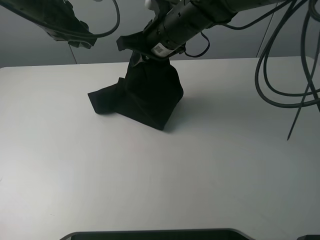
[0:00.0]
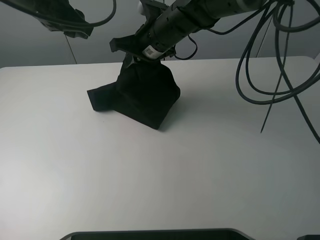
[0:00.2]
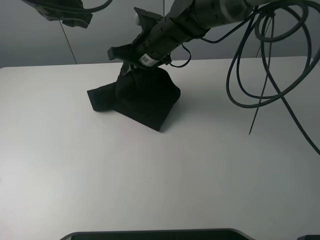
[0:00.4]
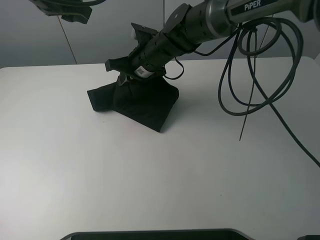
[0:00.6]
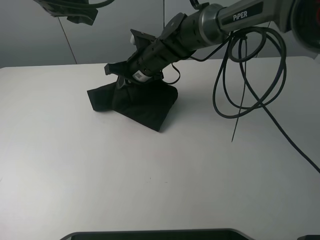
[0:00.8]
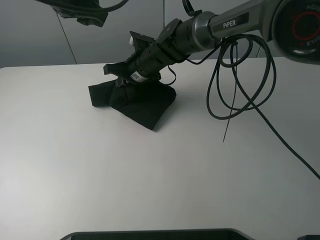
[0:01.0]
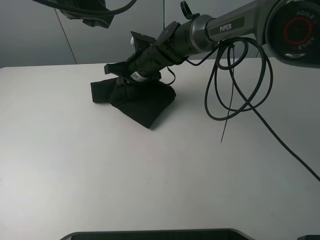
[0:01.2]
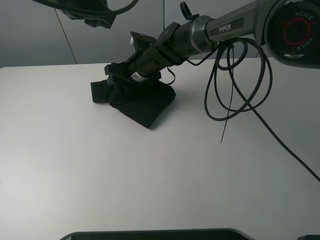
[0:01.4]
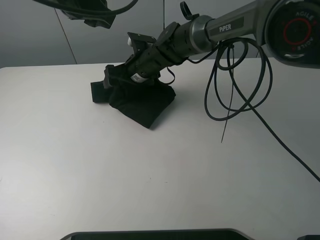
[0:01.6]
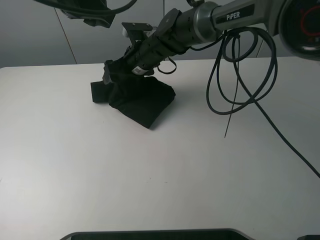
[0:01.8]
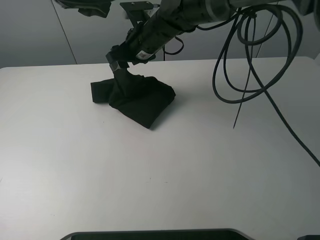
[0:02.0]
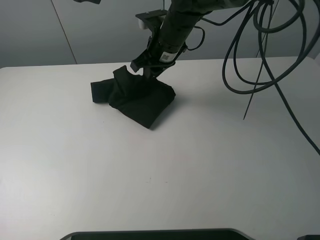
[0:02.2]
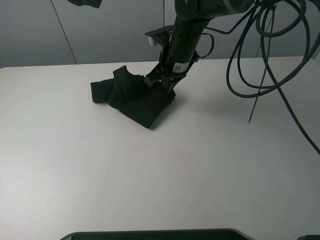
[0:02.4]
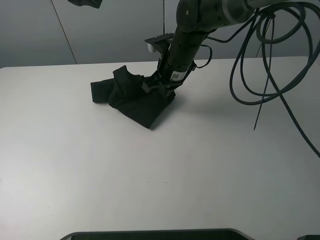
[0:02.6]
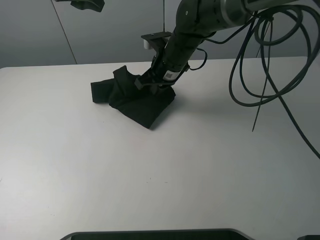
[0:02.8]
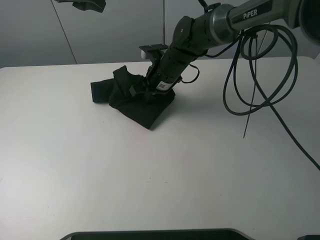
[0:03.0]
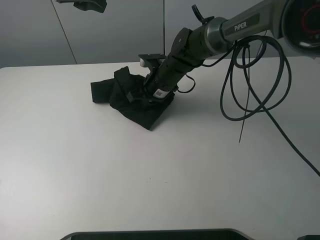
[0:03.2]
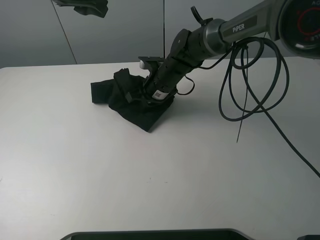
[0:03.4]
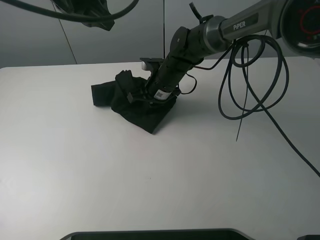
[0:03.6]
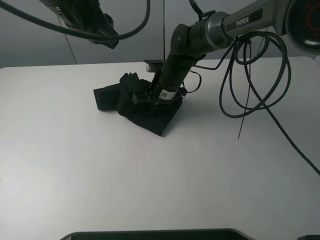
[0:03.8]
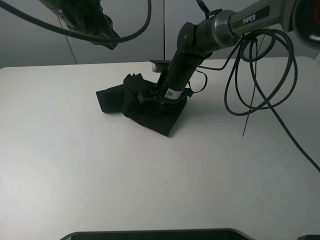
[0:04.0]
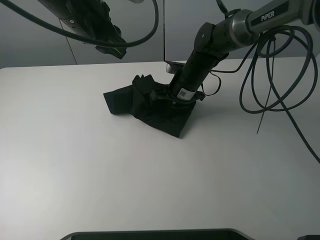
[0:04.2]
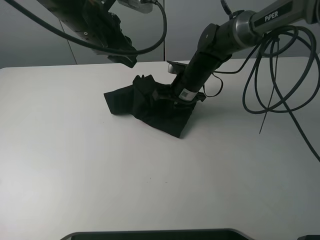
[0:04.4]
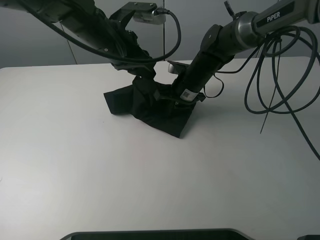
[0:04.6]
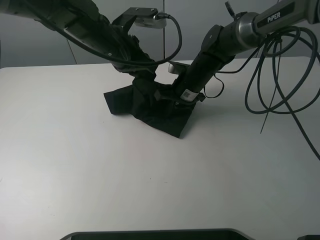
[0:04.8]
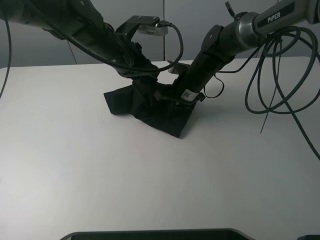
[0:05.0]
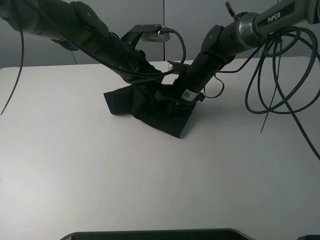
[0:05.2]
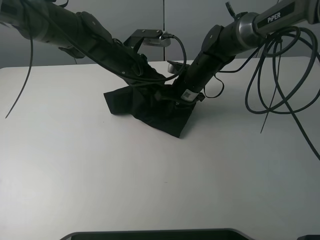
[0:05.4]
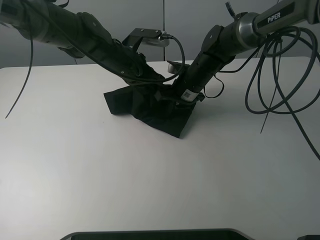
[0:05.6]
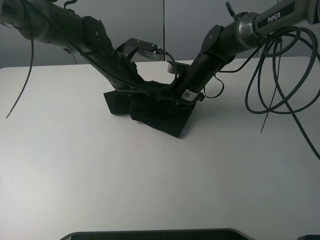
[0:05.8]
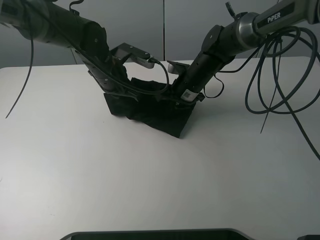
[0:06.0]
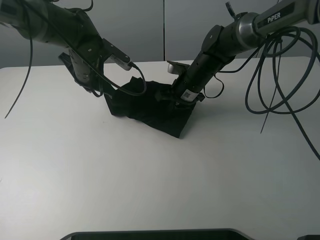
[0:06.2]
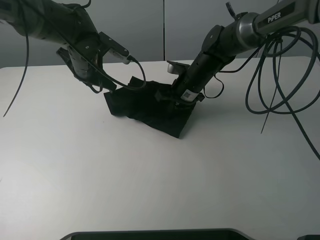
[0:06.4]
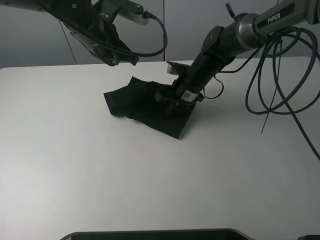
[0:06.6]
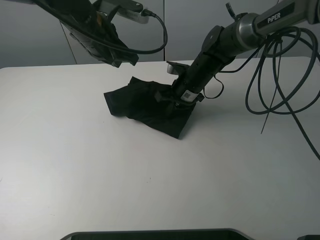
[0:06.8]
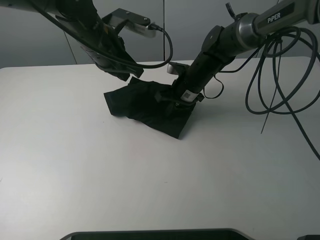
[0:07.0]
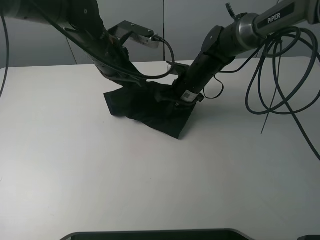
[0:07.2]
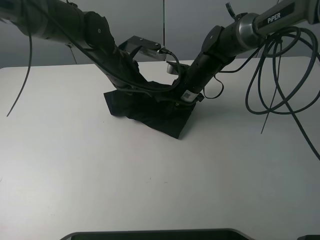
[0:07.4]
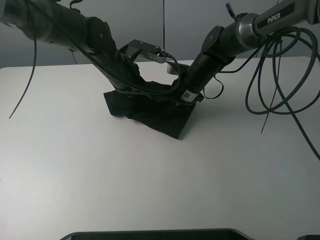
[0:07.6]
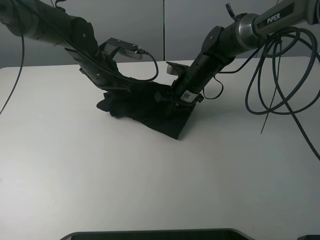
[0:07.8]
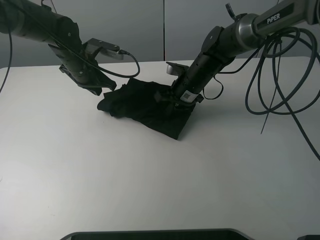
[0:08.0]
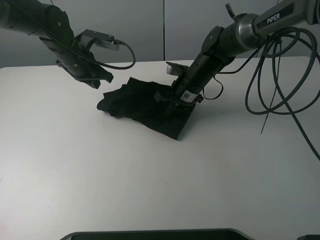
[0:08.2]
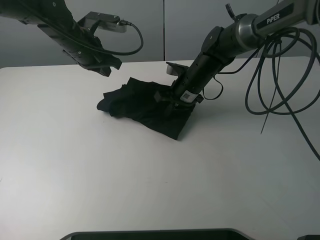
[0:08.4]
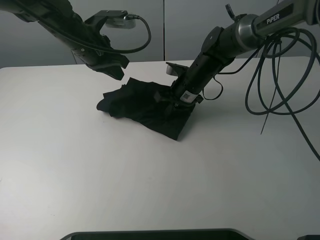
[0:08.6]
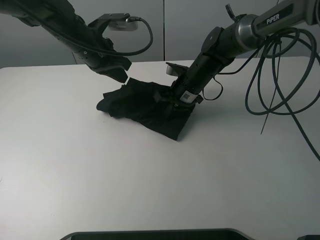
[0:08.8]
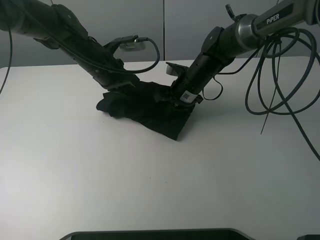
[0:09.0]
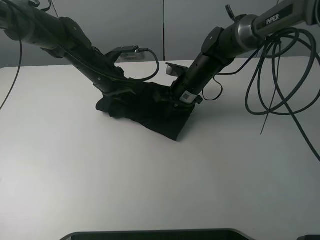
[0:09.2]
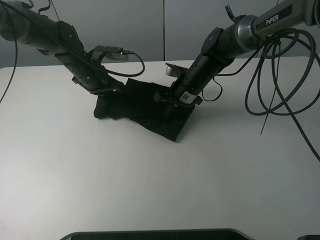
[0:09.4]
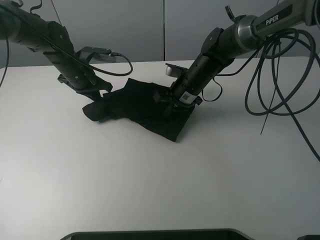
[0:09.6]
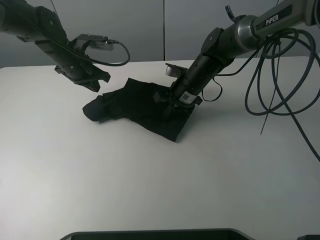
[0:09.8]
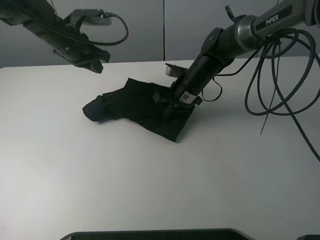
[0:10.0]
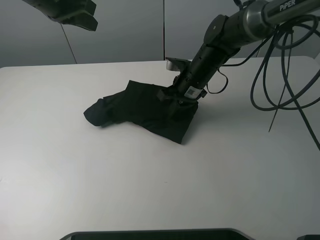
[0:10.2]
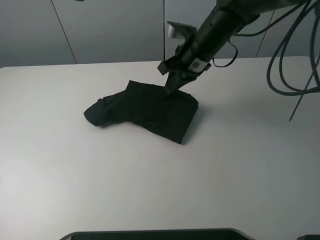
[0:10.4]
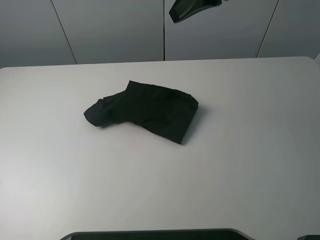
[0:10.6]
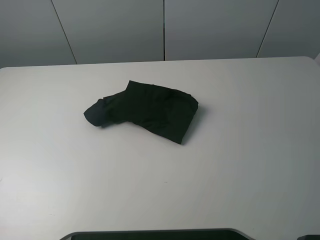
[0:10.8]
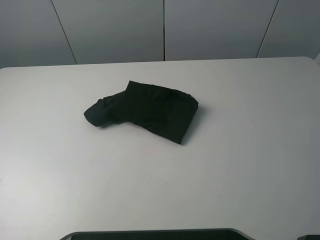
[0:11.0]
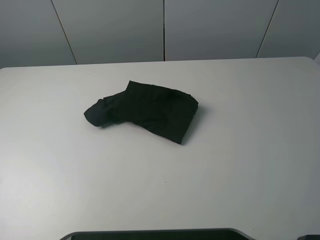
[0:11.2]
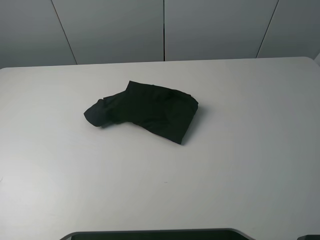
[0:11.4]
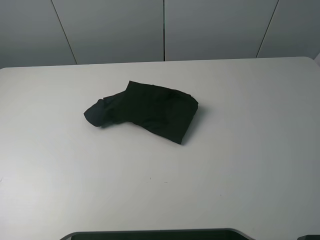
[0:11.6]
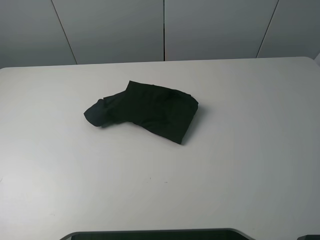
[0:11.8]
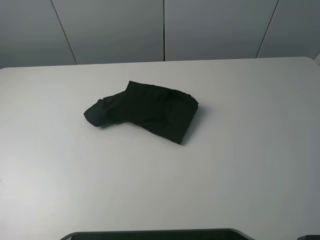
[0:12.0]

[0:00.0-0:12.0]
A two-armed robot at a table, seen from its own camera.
Task of the whole recording: fold the clothes on the table.
Step, 0:01.8 to 0:09.6: Use the left gripper to tidy up the clothes.
0:00.0 to 0:01.6: The left gripper changes place by approximately 5 cm; the right gripper travels downward, forward and to the left by some 15 cm, and opens up.
0:01.6 to 0:03.0: The right gripper travels upward and back again, some 5 cm each way, and closes its fingers.
0:03.0 to 0:04.4: The left gripper goes about 10 cm downward and to the right. Meanwhile the right gripper moves to the right, approximately 5 cm.
0:04.4 to 0:06.0: The left gripper moves downward, some 10 cm, and closes.
0:06.0 to 0:07.6: The left gripper reaches roughly 10 cm upward, then returns.
0:09.0 to 0:10.4: The left gripper moves upward, approximately 25 cm; the right gripper moves upward, some 15 cm.
0:10.4 to 0:12.0: The left gripper shifts roughly 40 cm backward and to the left. The right gripper moves backward, upward and to the right, roughly 50 cm.

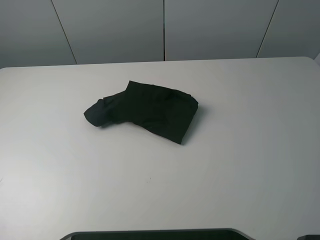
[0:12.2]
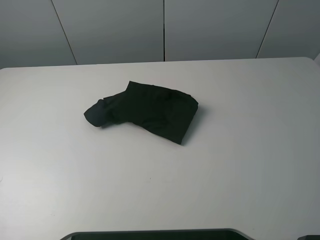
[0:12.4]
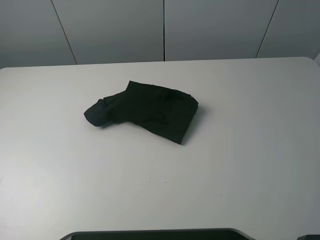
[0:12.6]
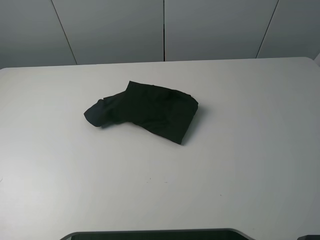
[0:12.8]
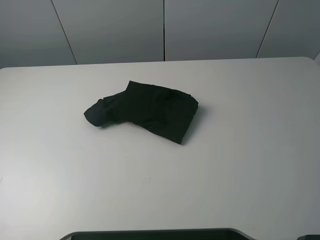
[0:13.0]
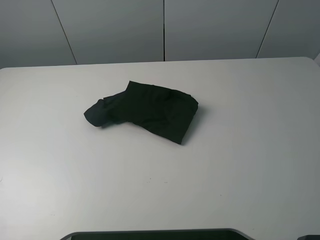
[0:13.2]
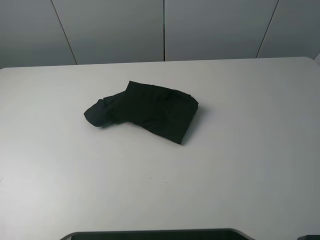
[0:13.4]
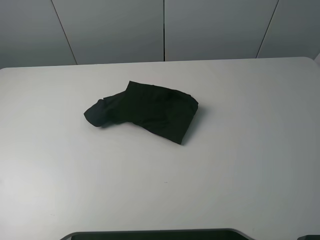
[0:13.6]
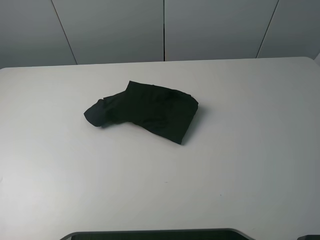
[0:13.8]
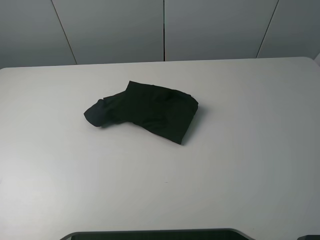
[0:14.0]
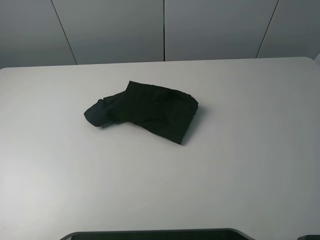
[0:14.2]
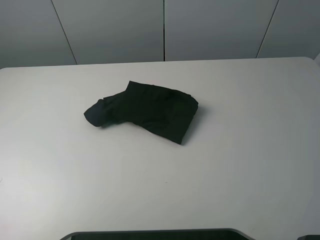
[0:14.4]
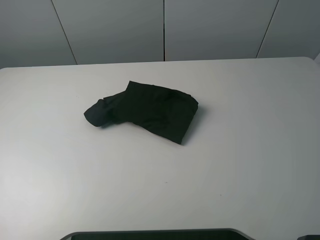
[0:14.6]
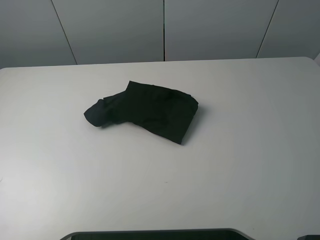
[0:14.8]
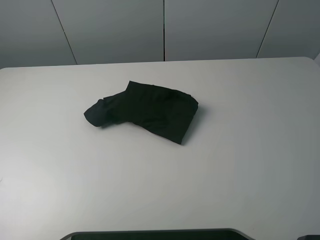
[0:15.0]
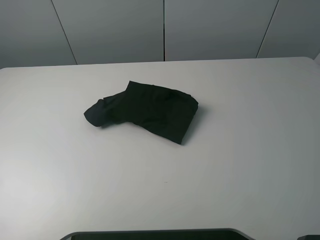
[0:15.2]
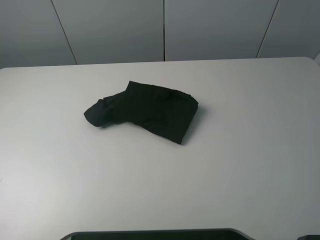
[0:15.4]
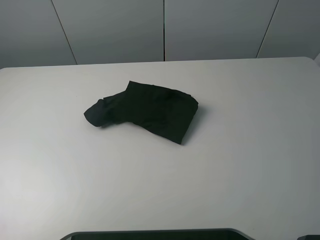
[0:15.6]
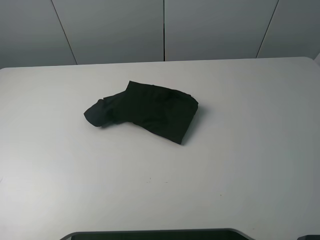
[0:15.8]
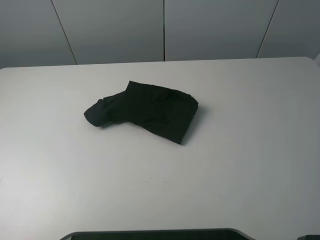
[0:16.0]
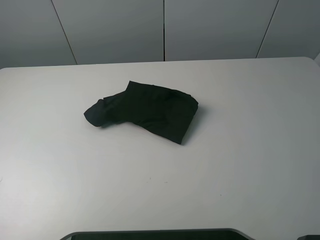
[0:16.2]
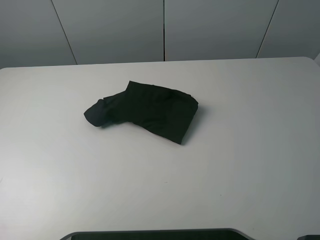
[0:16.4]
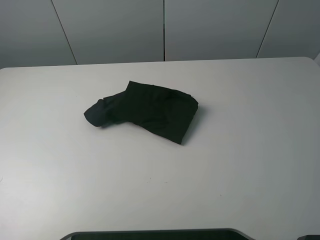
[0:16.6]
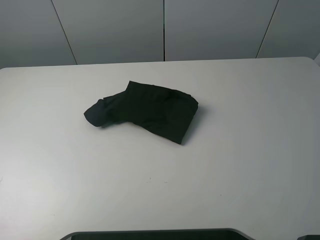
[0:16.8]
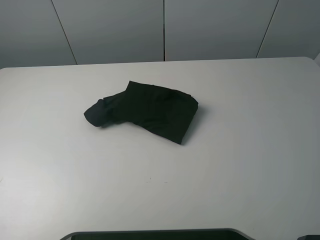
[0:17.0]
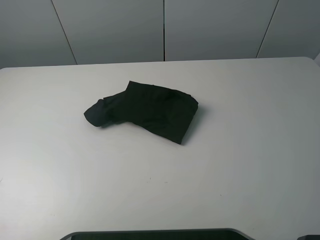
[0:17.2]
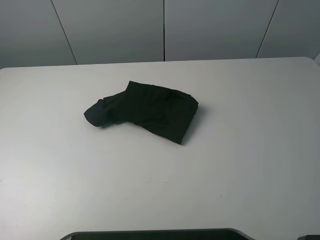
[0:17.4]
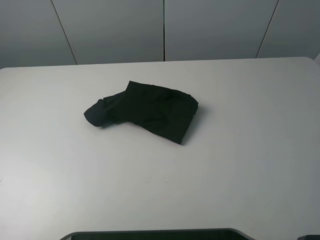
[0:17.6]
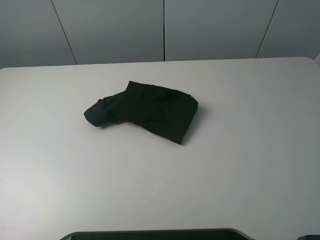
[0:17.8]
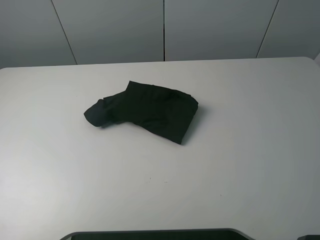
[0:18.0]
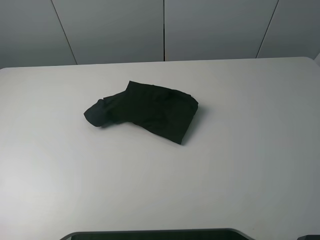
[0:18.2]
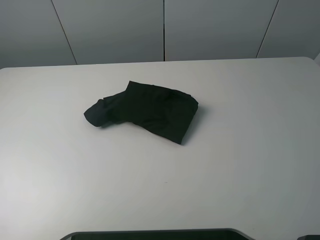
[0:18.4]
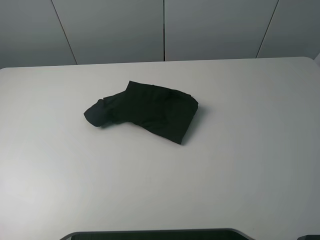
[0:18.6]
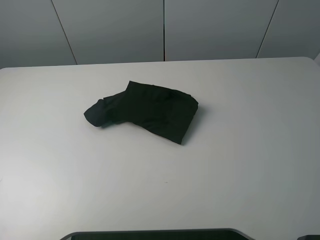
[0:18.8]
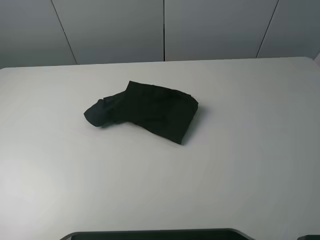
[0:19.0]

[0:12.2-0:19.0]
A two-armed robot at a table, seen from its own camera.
Task of the whole recording: fold the clothes on the table.
0:15.0 to 0:19.0: Both grippers stay put.

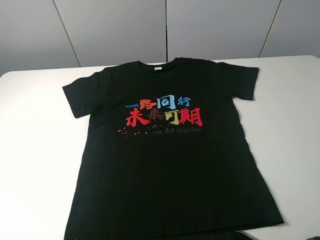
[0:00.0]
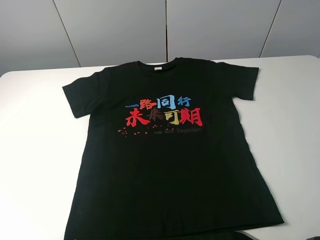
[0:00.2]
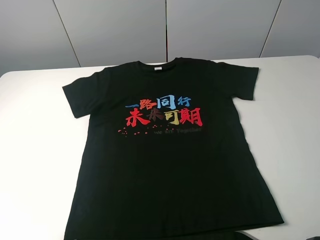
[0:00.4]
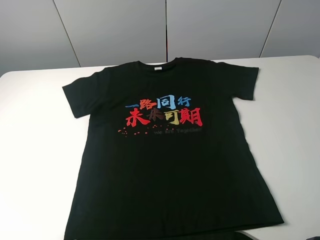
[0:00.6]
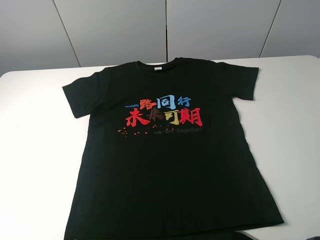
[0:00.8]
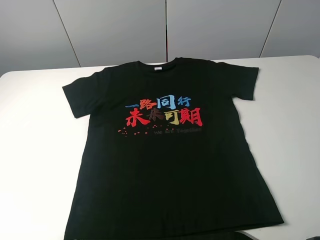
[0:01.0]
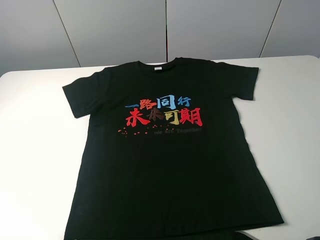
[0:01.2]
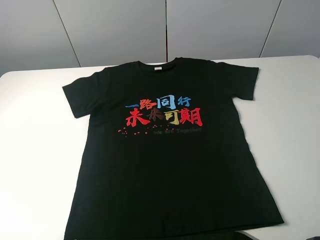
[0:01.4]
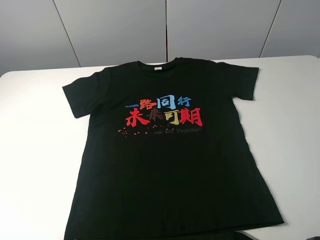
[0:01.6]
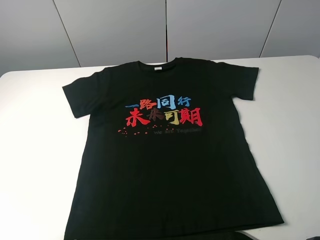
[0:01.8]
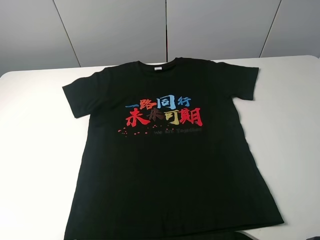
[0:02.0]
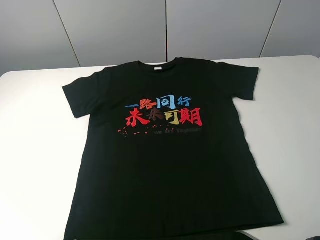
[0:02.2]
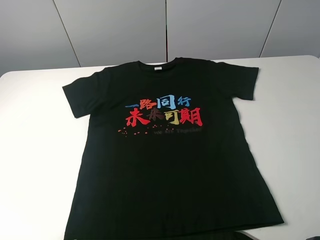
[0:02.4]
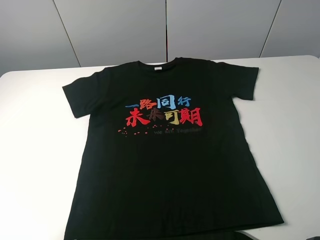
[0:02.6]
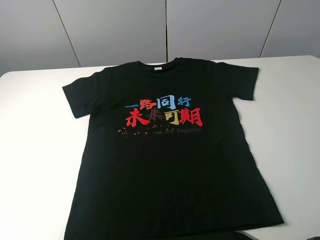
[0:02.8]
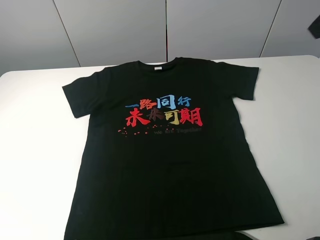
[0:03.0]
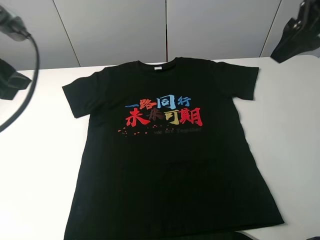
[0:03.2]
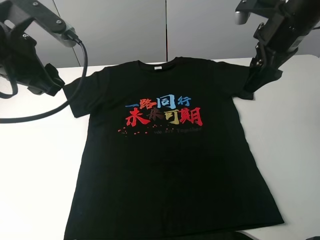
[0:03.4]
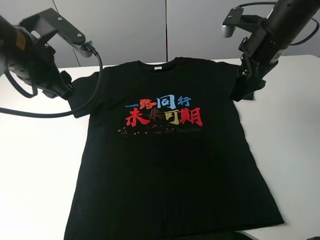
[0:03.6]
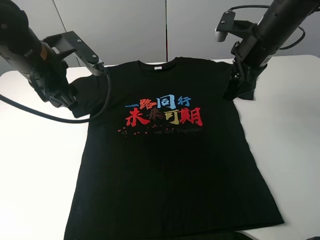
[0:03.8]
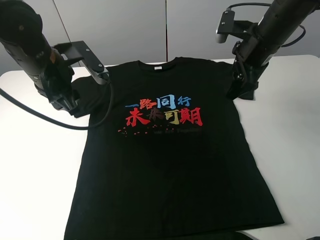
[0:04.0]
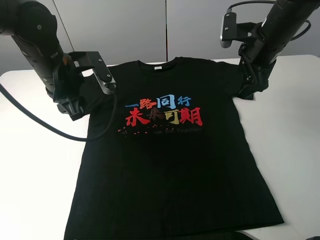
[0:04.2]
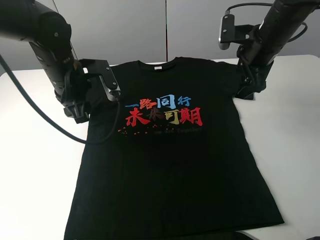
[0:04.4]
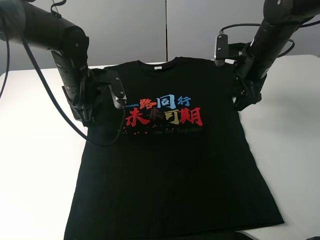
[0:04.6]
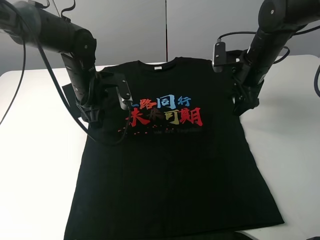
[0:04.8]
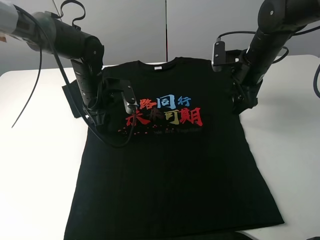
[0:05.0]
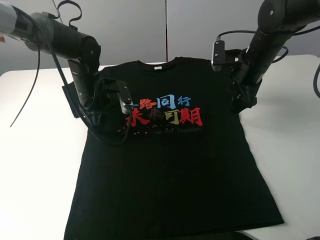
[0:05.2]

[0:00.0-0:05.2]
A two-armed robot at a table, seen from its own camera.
Task of the whole recording: fold the clothes on the table.
0:00.0 to 0:01.8: Both grippers stay about where they are.
0:01.8 to 0:03.4: The right gripper moves forward, roughly 30 cm. Meanwhile the left gripper travels forward and to the right by about 30 cm.
0:03.4 to 0:05.2: The left gripper moves downward, forward and to the right, about 20 cm. The right gripper goes about 10 cm downward.